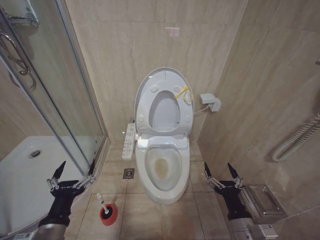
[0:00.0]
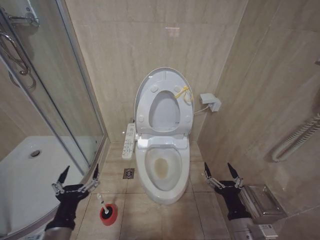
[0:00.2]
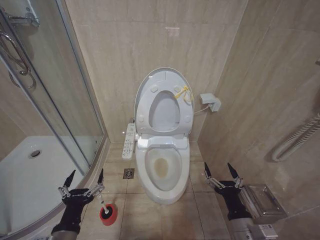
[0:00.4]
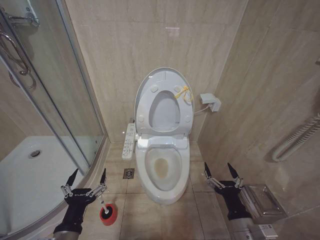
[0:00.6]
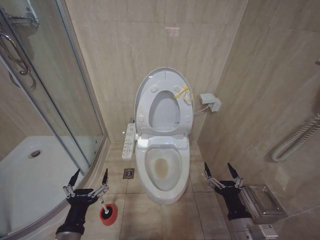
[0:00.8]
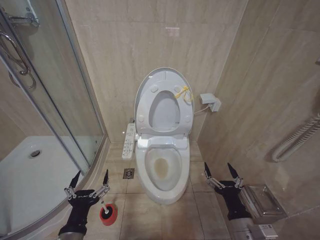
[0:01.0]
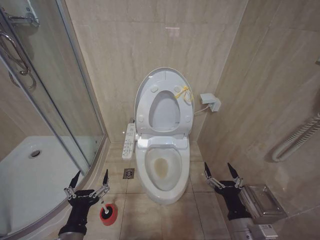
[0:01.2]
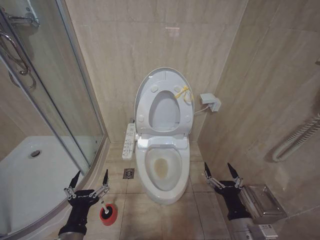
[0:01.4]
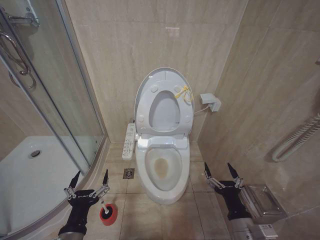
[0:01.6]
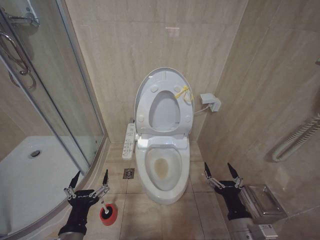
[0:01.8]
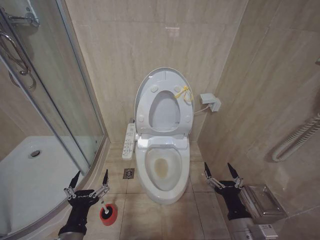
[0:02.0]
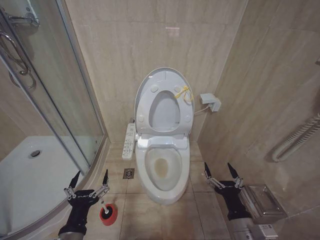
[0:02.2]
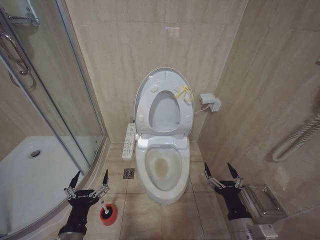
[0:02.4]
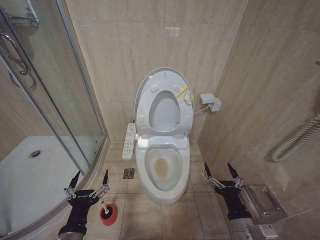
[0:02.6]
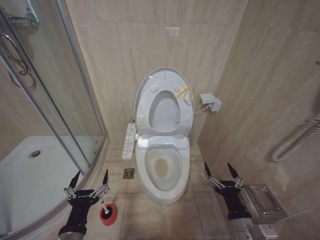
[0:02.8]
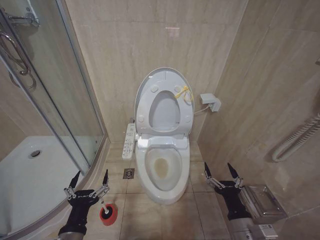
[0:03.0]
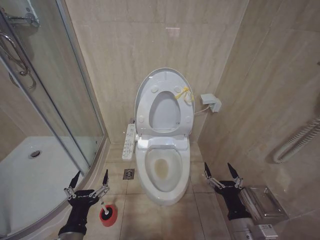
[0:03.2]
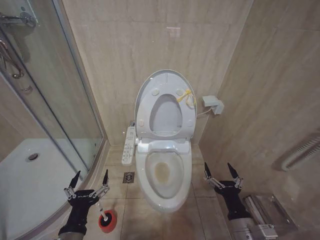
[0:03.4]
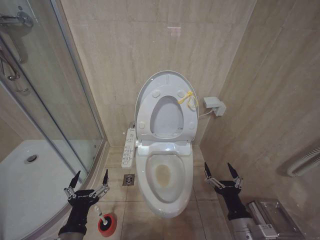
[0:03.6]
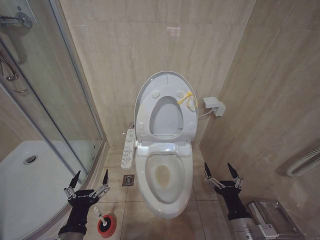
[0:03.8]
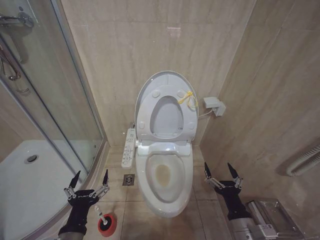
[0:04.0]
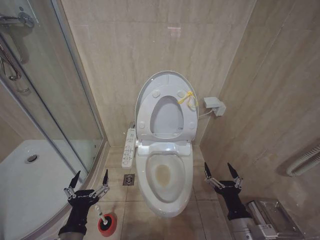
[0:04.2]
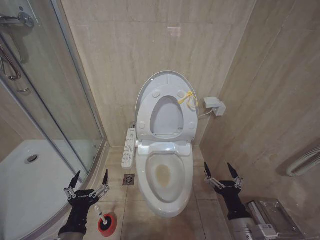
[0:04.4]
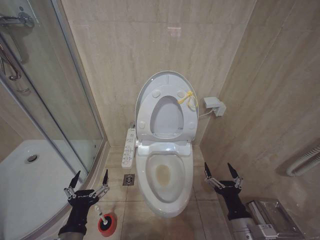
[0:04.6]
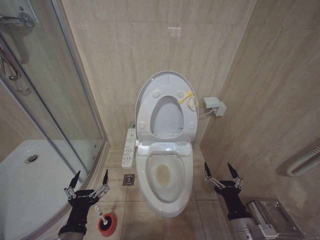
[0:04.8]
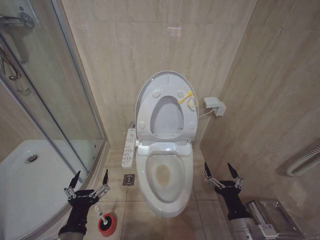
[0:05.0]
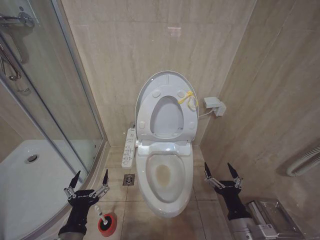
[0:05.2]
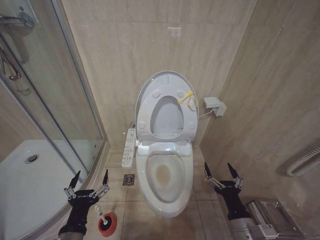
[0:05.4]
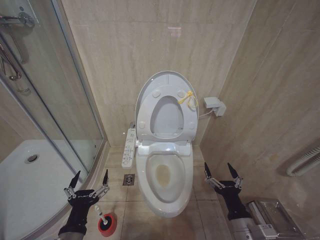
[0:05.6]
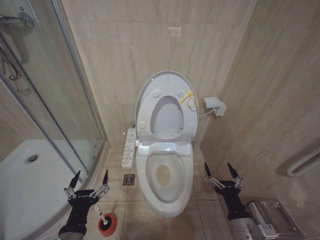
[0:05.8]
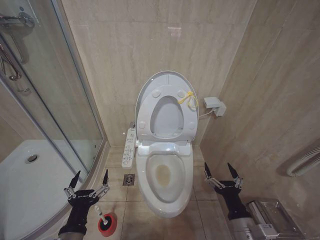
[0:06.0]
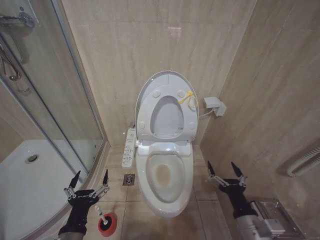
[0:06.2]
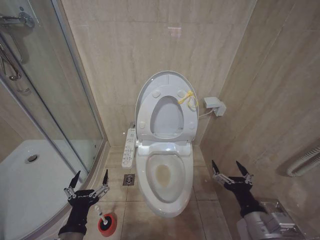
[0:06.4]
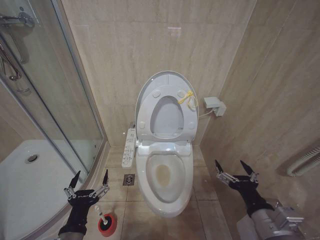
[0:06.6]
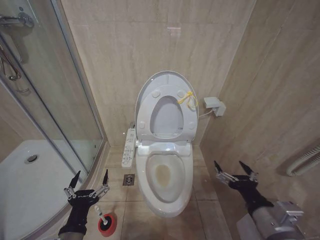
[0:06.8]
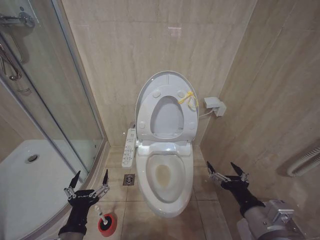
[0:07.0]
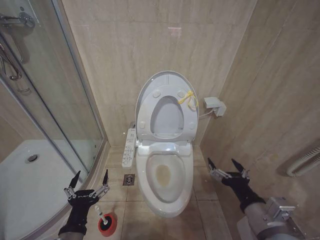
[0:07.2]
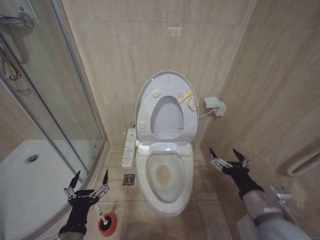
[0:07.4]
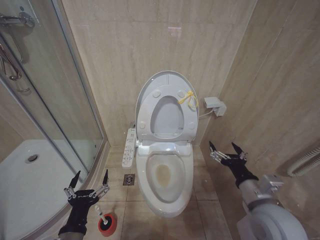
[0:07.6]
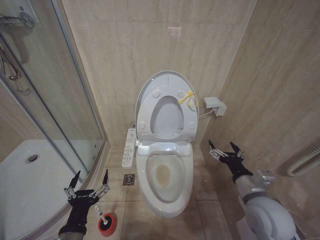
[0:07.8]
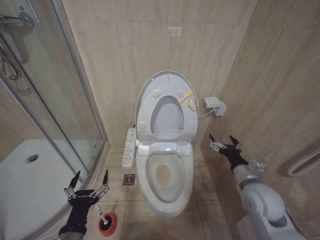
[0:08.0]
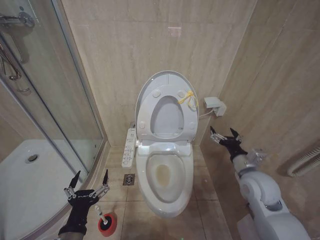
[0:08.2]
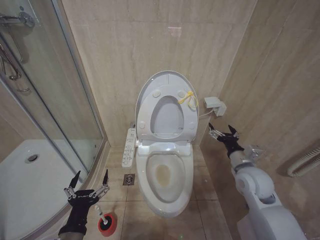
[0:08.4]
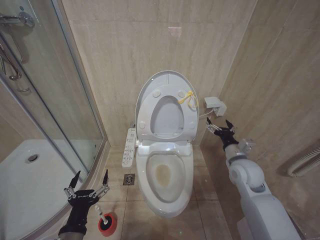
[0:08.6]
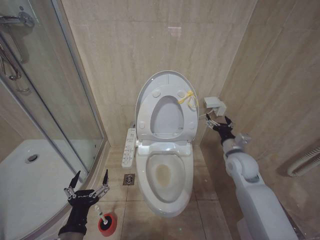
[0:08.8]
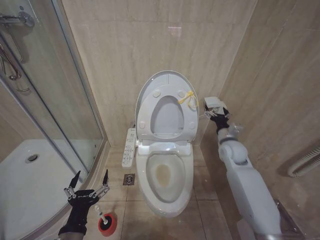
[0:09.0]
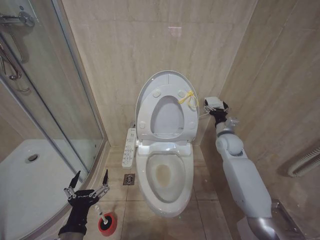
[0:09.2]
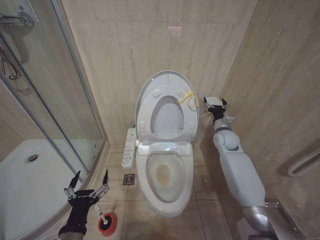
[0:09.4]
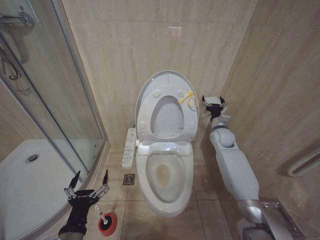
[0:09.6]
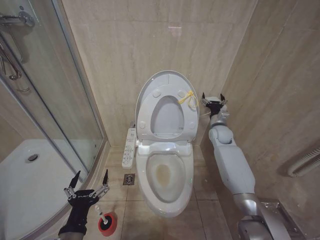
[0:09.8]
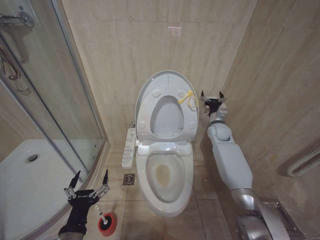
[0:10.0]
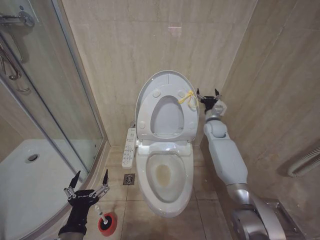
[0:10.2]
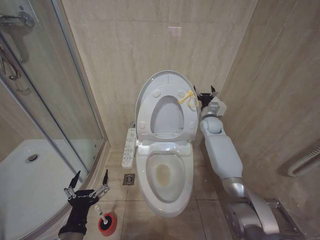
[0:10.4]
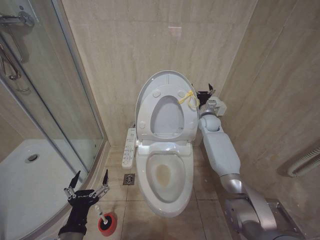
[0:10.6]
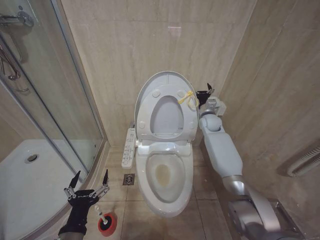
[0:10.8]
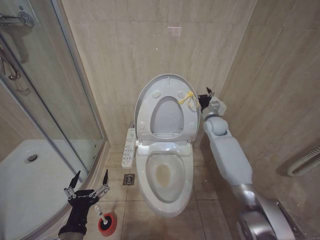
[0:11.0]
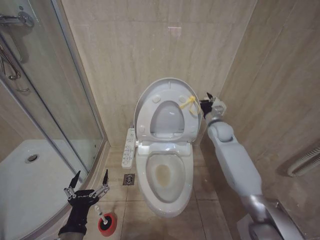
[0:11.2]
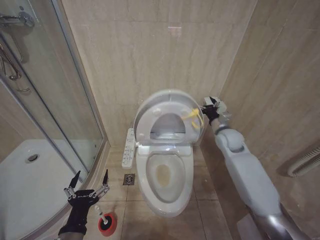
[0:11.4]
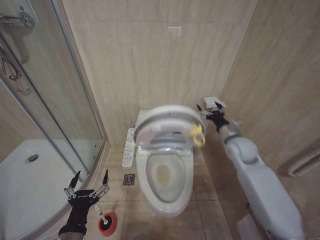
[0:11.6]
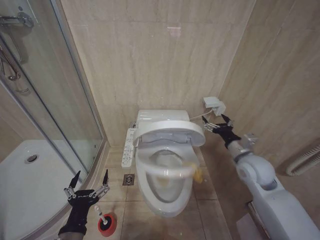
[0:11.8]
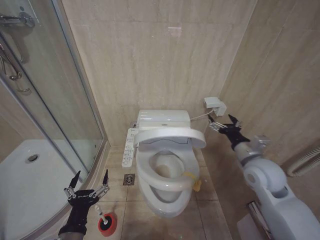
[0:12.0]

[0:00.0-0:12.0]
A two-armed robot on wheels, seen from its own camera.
Task of the whole recording: Open the toilet lid, clean the toilet bowl with a toilet brush, close the toilet lid, and flush.
0:00.0 to 0:01.6: The left gripper changes place by about 5 cm.
0:01.6 to 0:06.0: Both grippers stay about where they are.
0:06.0 to 0:07.6: The right gripper shifts some 10 cm upward.
0:07.6 to 0:09.0: The right gripper moves forward, about 25 cm.
0:09.0 to 0:10.4: The right gripper moves forward, approximately 15 cm.
0:10.4 to 0:12.0: The right gripper travels backward by approximately 25 cm.

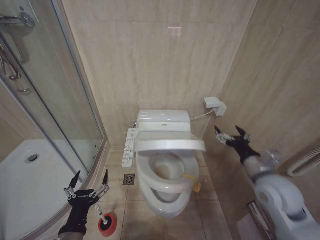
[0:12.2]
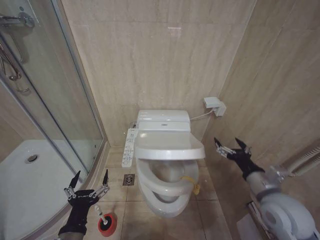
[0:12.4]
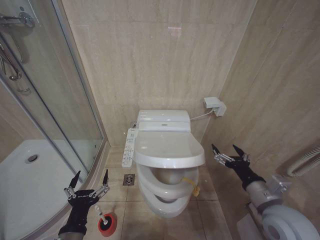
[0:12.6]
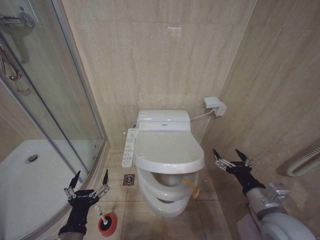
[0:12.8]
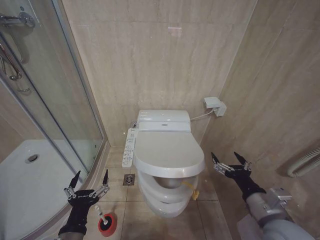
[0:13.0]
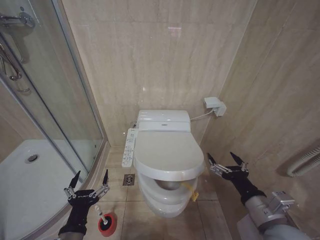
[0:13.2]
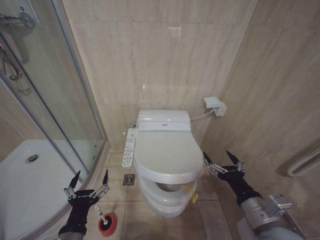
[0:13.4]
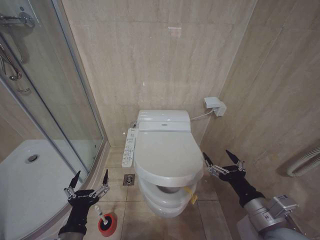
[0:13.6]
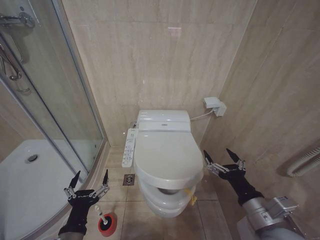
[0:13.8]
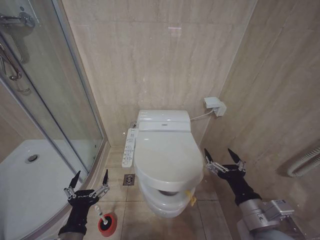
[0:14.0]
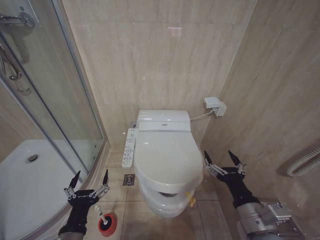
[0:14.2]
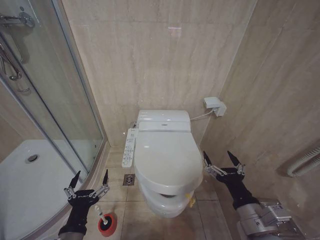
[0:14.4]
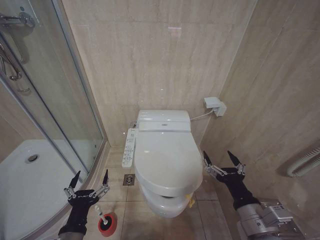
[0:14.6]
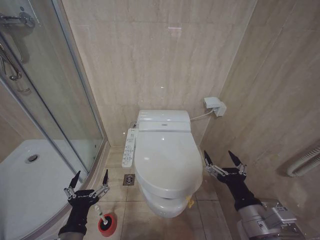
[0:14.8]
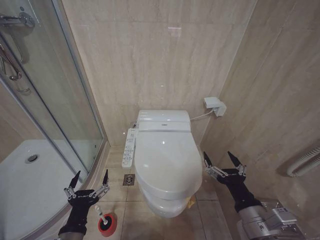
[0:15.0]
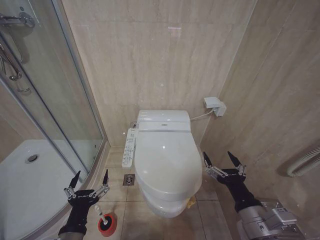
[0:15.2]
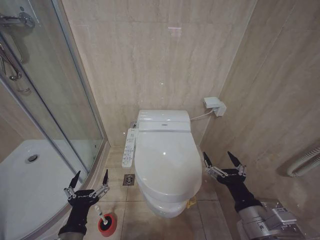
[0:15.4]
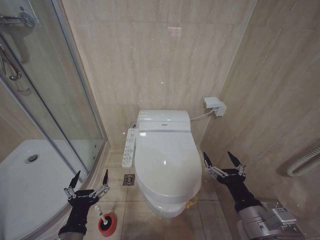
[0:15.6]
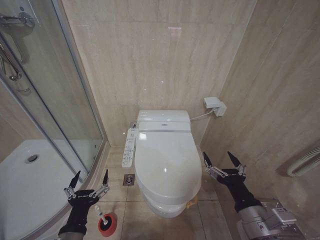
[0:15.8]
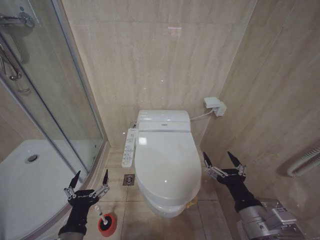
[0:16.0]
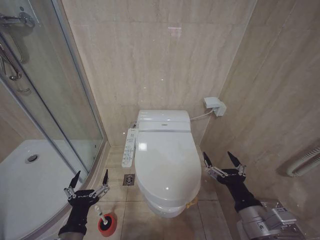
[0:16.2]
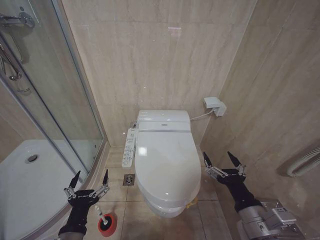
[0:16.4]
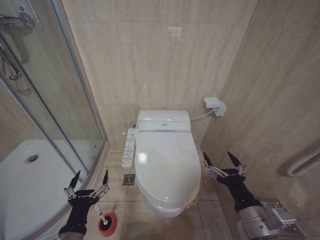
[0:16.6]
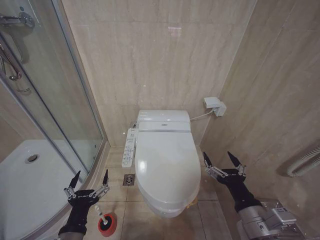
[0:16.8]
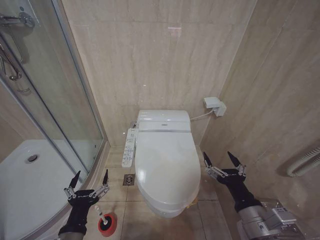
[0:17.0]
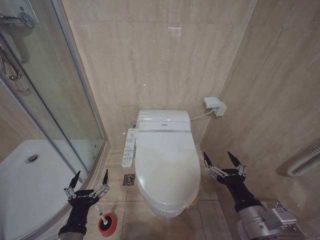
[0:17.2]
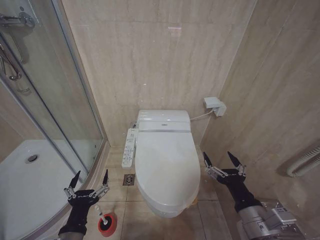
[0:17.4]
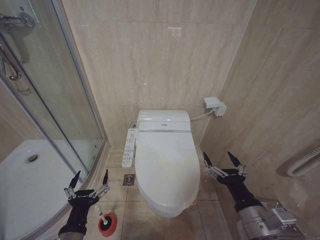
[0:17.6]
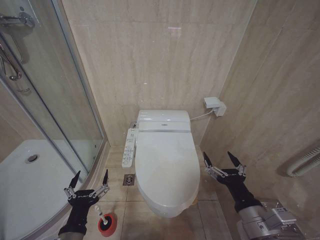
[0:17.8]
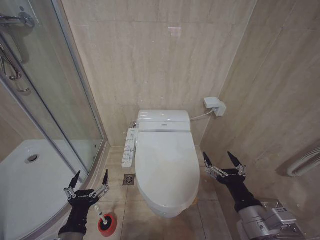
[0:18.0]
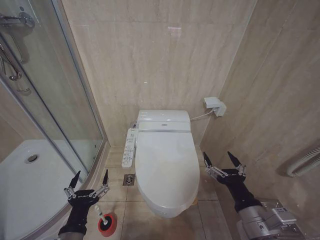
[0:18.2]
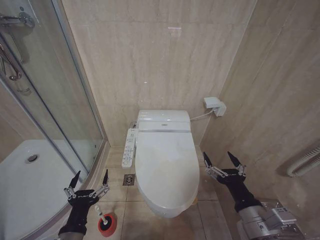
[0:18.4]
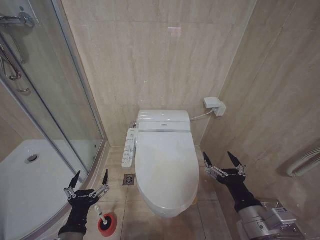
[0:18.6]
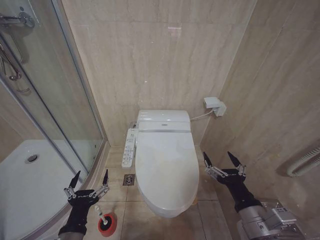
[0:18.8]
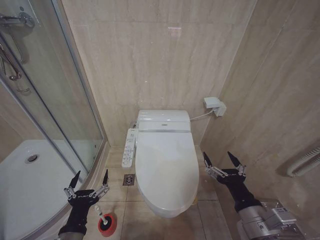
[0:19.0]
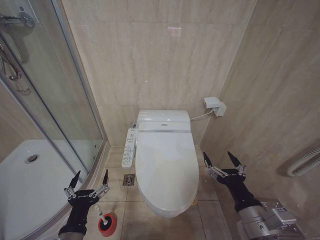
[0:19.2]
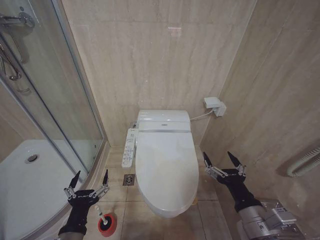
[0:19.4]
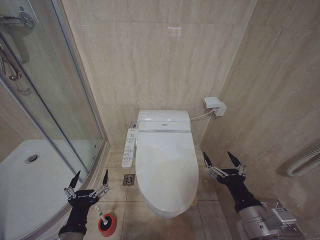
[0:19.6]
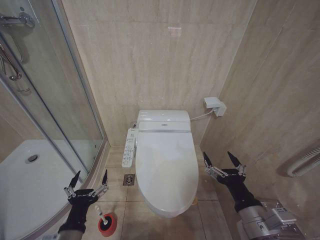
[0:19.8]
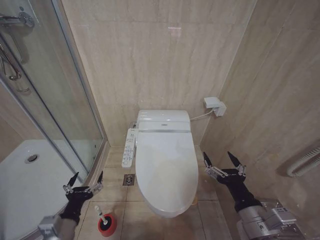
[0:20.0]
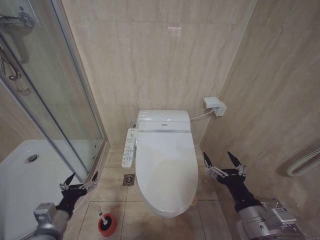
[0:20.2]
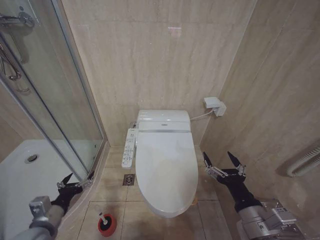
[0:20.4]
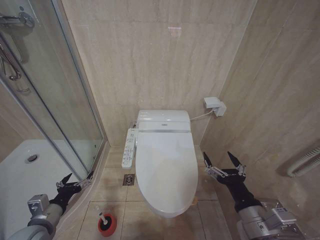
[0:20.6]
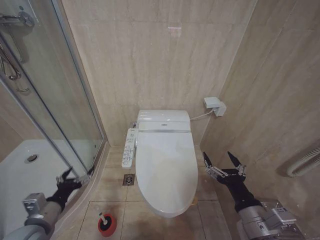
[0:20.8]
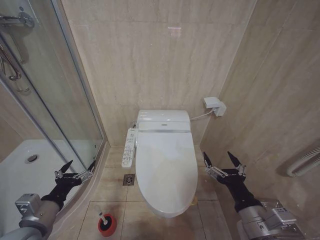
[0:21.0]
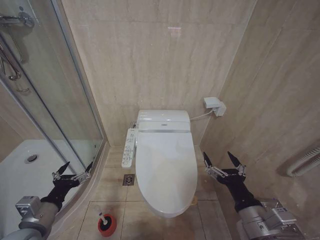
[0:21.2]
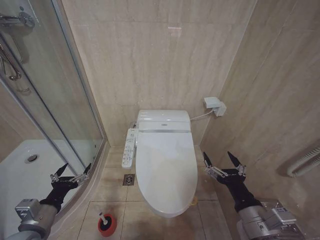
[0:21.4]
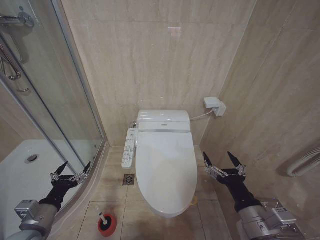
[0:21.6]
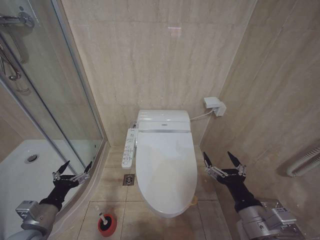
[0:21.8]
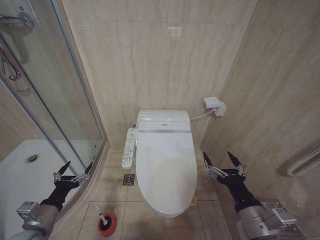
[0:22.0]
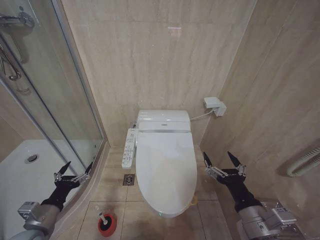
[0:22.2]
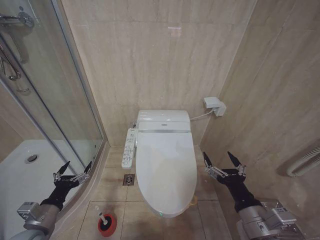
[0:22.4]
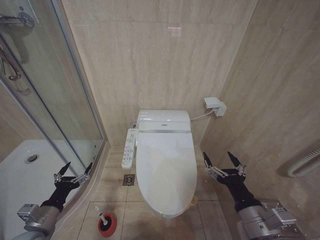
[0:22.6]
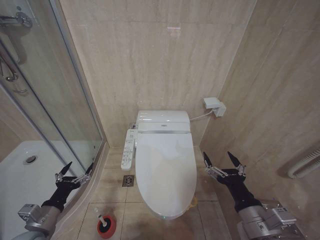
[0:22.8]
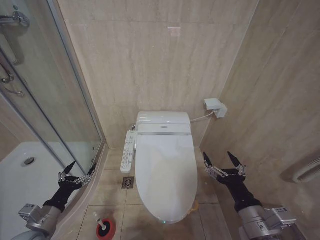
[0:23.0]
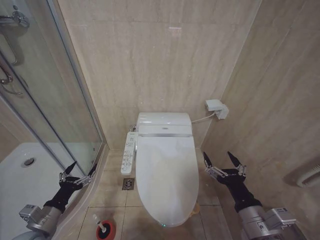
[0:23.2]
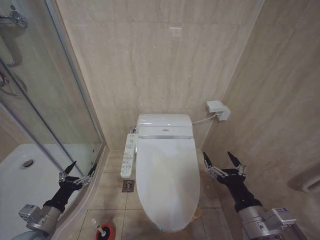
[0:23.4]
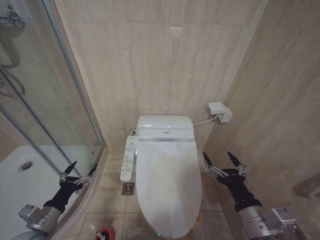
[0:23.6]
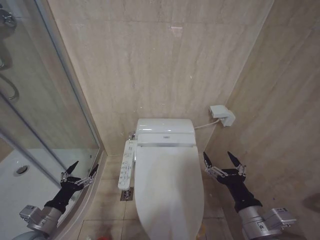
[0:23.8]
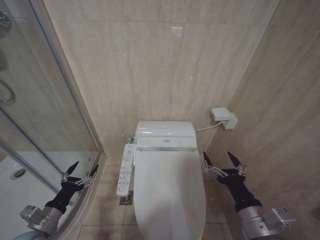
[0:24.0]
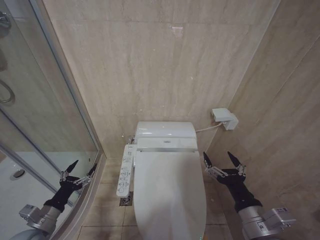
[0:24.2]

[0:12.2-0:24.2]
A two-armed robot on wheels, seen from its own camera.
Task of the whole recording: Open the toilet lid, clean the toilet bowl with a toilet brush, close the toilet lid, and flush.
0:12.2 to 0:13.8: The right gripper is displaced backward by some 15 cm.
0:13.8 to 0:15.2: The grippers stay close to where they were, moving slightly.
0:15.2 to 0:19.8: Neither gripper changes place.
0:19.8 to 0:21.2: The left gripper is displaced to the left and forward by roughly 10 cm.
0:21.2 to 0:22.6: The left gripper moves downward, roughly 5 cm.
0:22.6 to 0:24.2: There are only small adjustments of the grippers.
